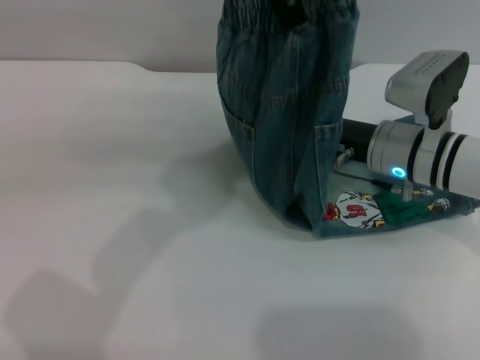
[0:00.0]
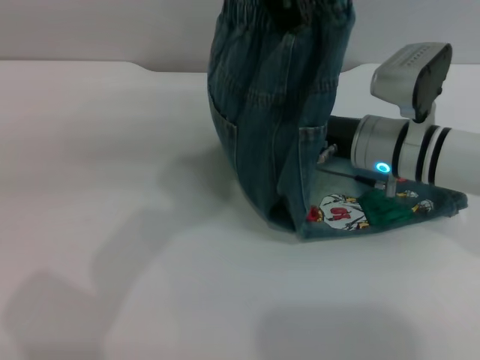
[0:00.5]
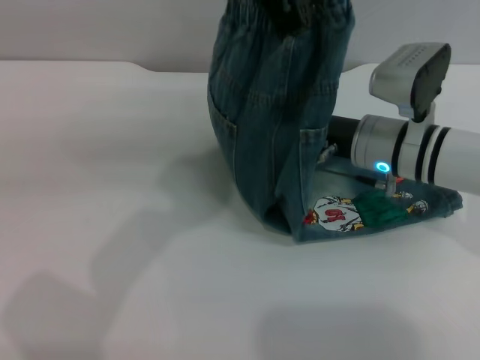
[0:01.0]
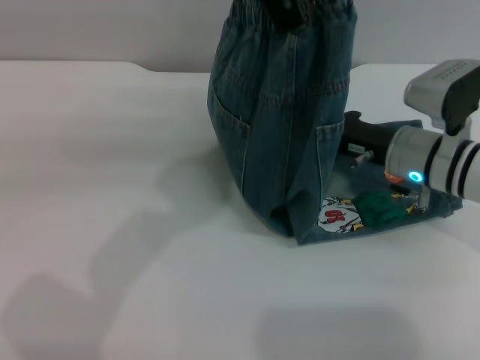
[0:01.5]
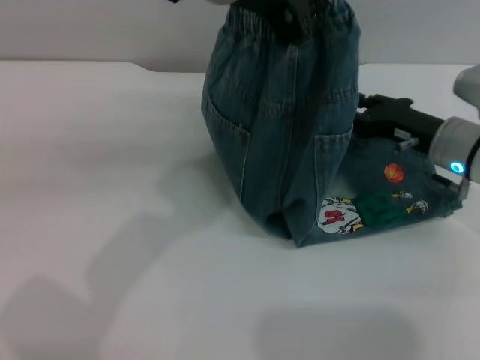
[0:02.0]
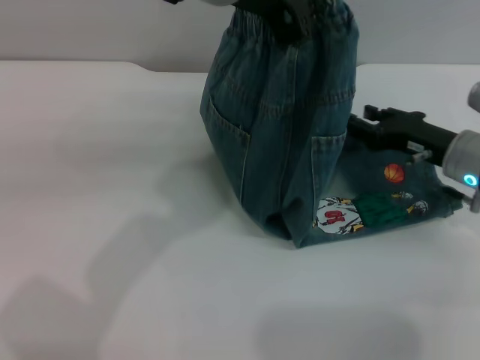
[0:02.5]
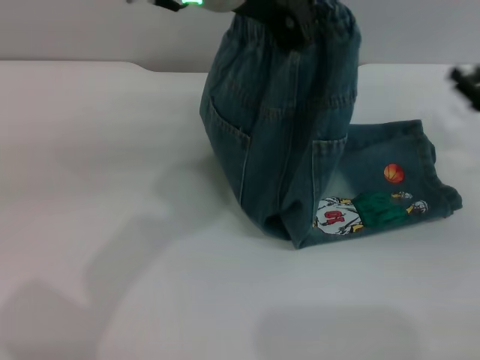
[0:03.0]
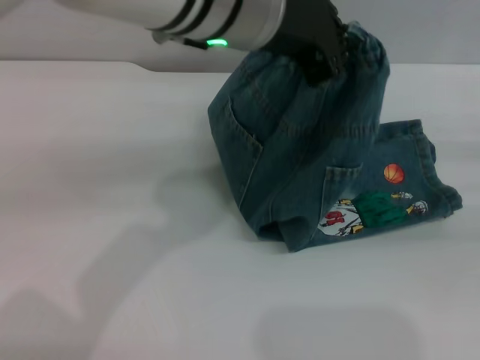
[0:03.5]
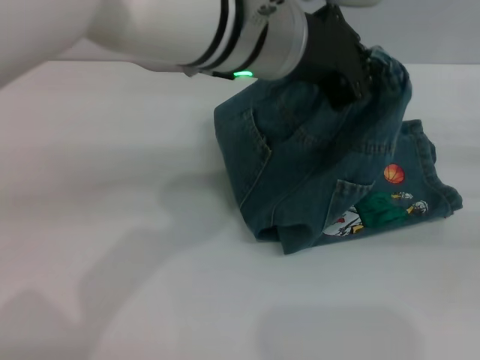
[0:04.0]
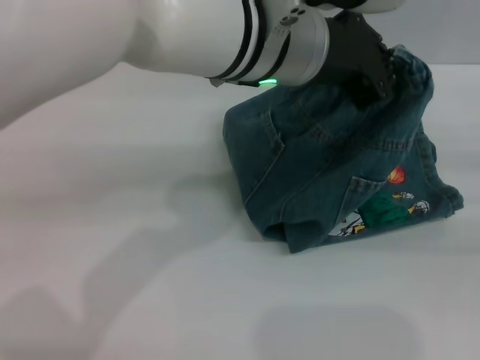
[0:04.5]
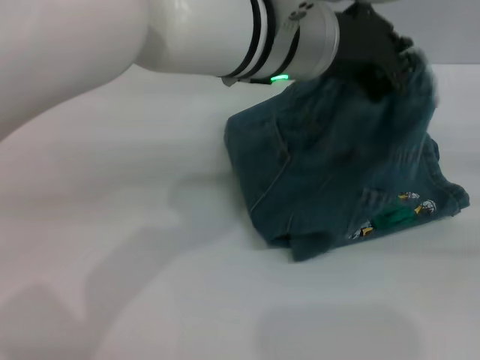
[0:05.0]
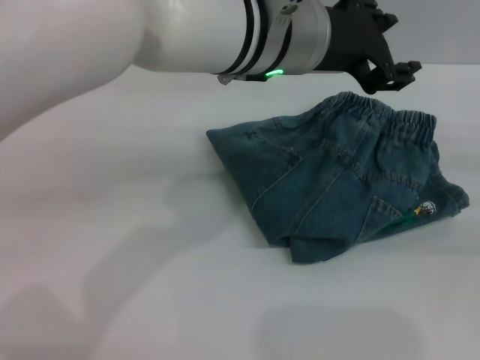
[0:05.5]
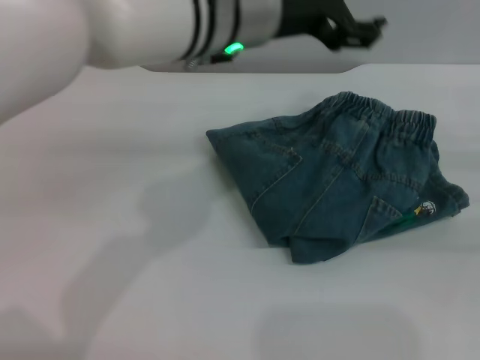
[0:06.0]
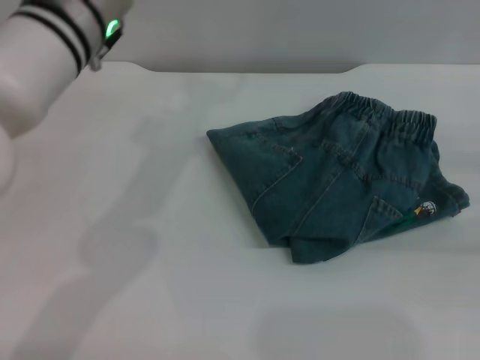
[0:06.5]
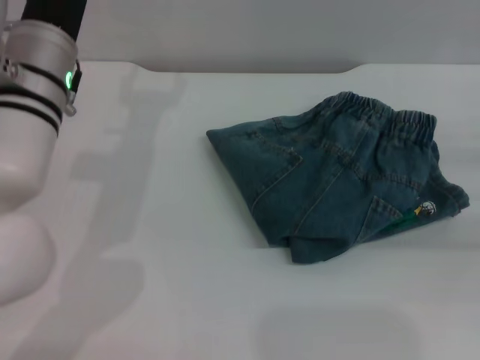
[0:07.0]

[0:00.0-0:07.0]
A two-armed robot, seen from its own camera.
Step, 0:00.0 to 0:05.0: Fold the pants from left to right with the left gripper.
0:00.0 to 0:02.0: The right gripper heads to the right, covering about 5 cm.
0:02.0 to 0:03.5: The right gripper is displaced to the right and backward by approximately 20 cm.
0:03.5 to 0:05.0: The left gripper changes place by some 5 cm.
0:05.0 to 0:07.0: The left gripper shifts approximately 20 cm to the left and downward, and opens up.
